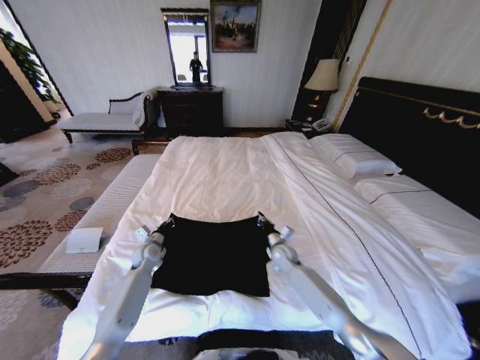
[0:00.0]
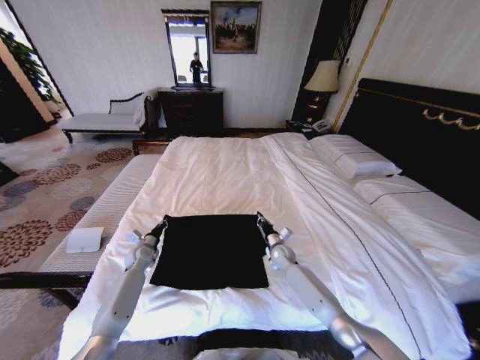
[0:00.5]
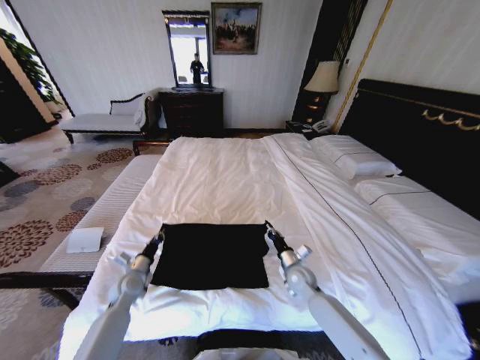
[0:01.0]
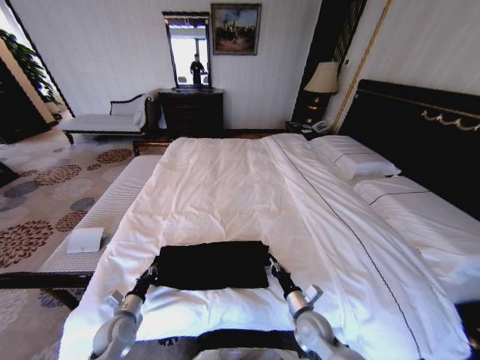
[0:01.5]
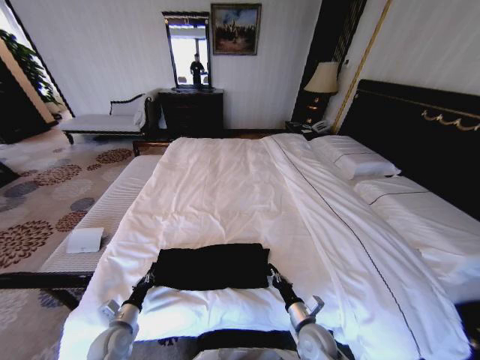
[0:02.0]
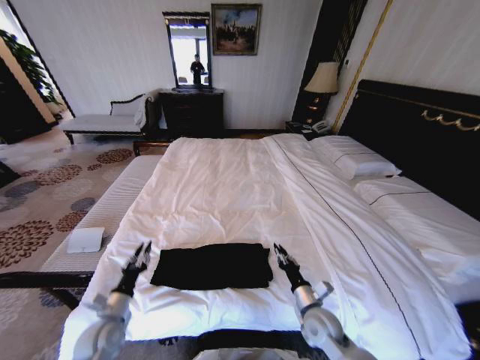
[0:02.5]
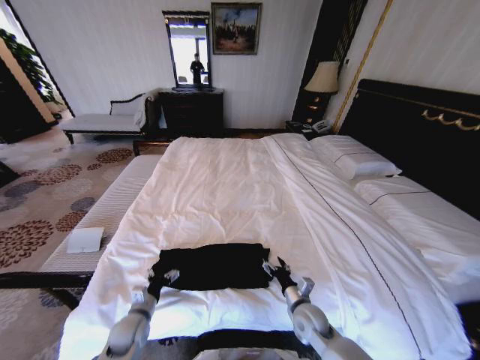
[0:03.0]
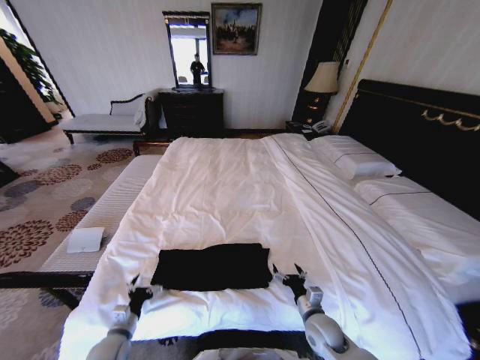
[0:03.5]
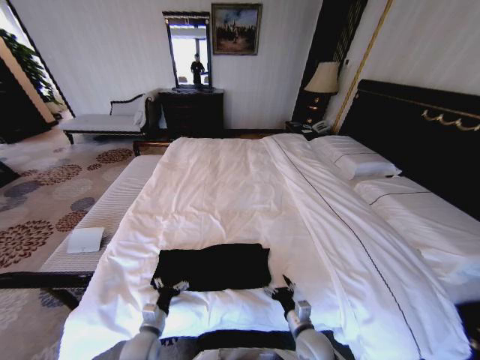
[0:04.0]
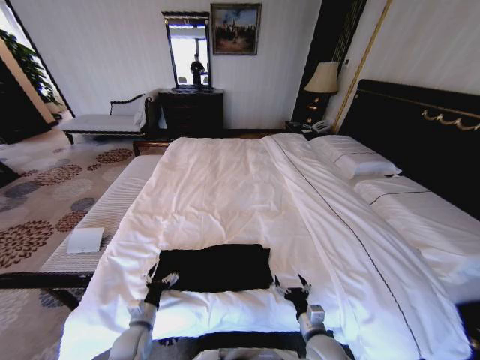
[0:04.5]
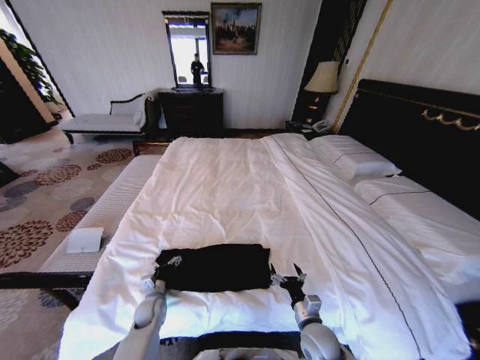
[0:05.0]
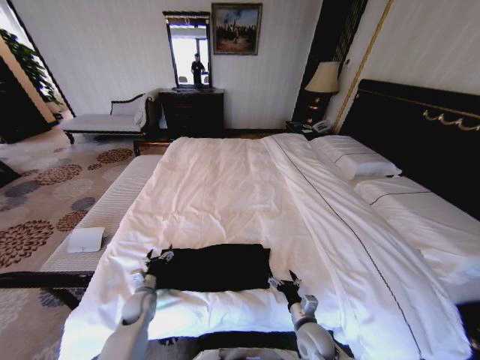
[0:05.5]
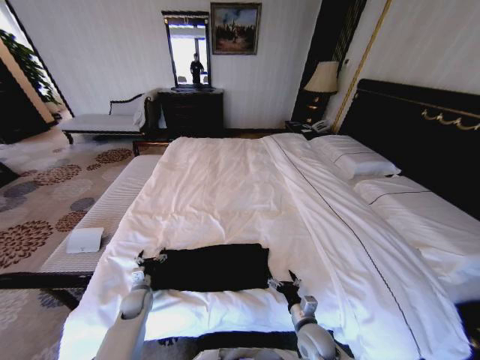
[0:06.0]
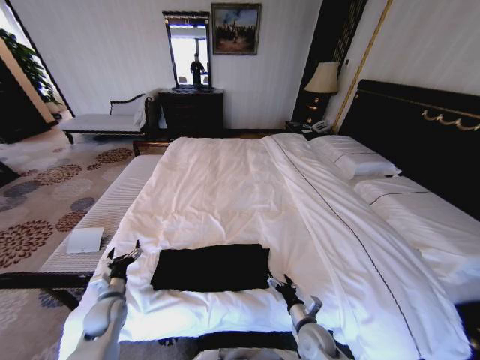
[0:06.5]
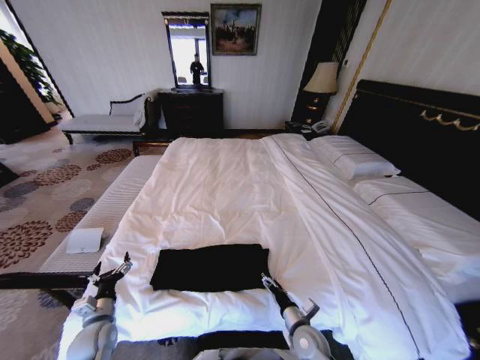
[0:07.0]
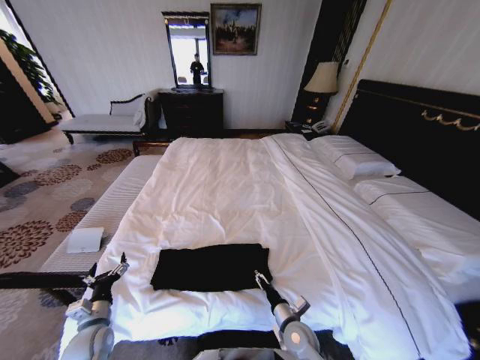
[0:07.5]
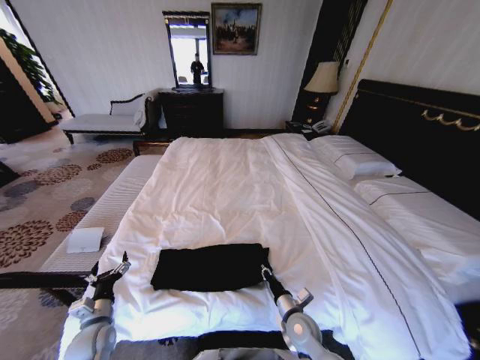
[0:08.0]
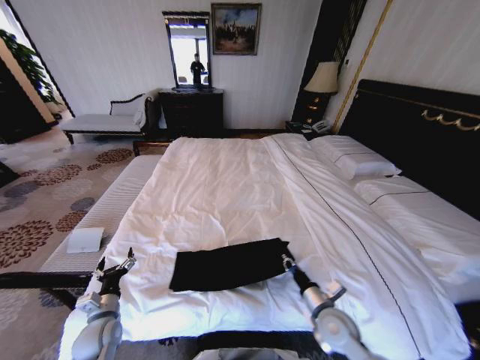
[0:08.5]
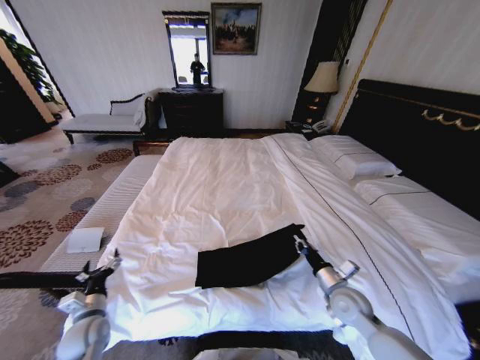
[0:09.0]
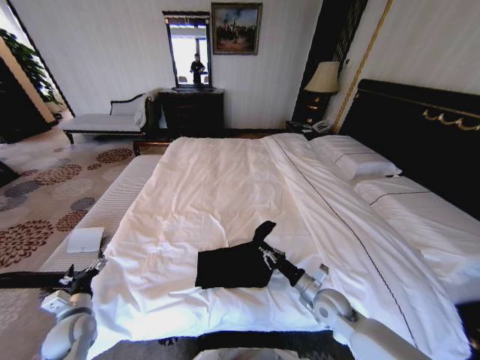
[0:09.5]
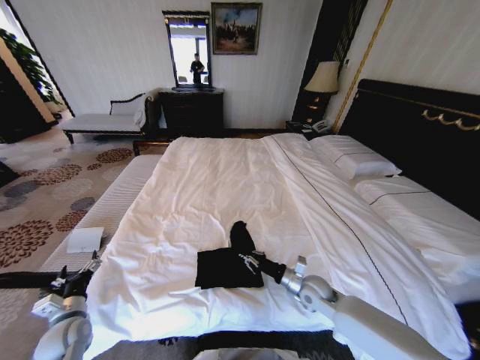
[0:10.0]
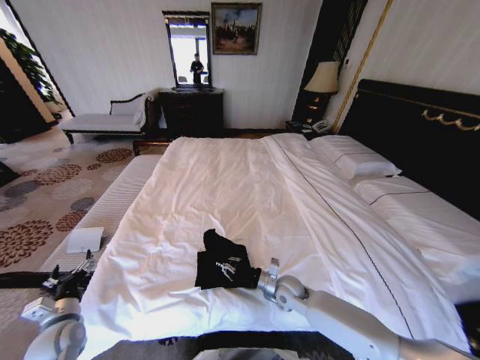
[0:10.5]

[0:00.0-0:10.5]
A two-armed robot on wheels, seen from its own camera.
Task of the whole recording: Fold the clothes on the bed.
0:00.0 to 0:02.0: The two grippers go approximately 25 cm backward.
0:02.0 to 0:04.0: The left gripper travels to the right by about 10 cm, moves roughly 10 cm upward and comes back, and opens its fingers, while the right gripper opens up.
0:04.0 to 0:06.5: The left gripper travels to the left, forward and upward by about 15 cm.
0:06.5 to 0:08.5: The left gripper heads backward, covering about 5 cm. Meanwhile the right gripper is displaced upward by approximately 10 cm, and closes.
0:08.5 to 0:10.5: The left gripper heads to the left, covering some 10 cm. Meanwhile the right gripper is displaced forward and to the left by approximately 15 cm.

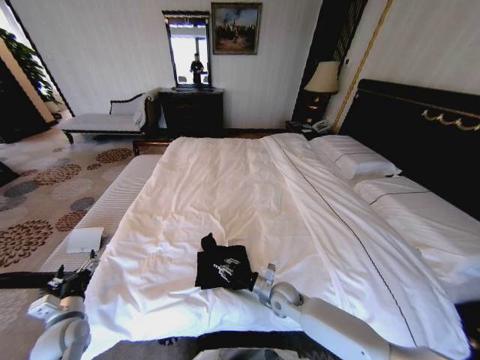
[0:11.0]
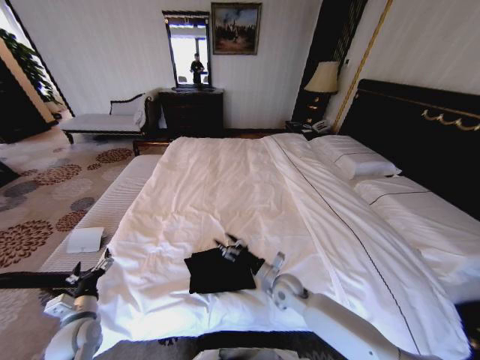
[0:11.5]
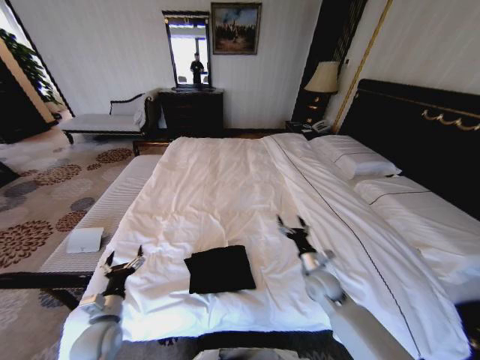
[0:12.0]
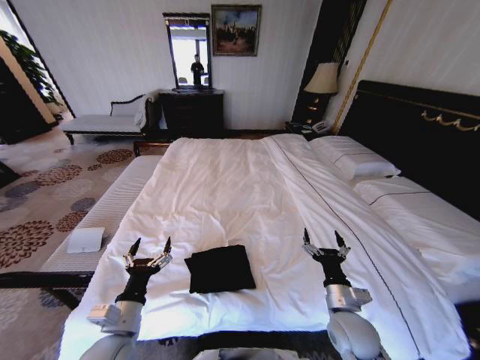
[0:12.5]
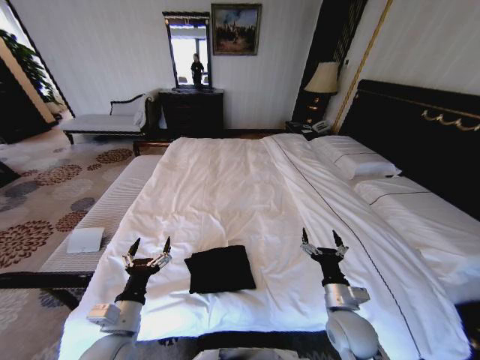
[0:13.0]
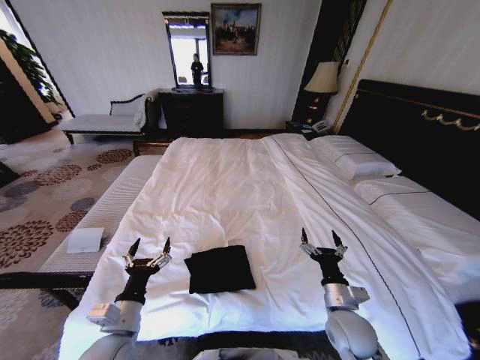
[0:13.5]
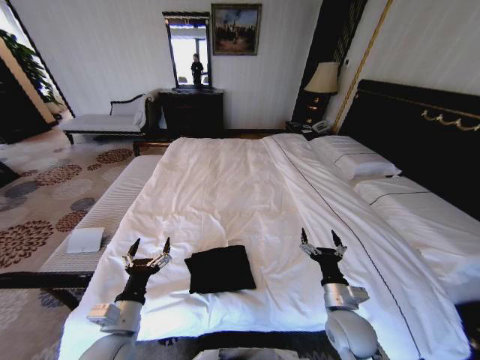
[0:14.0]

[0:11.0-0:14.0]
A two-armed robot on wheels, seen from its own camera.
Task of the whole recording: Fold the clothes on the bed.
0:11.0 to 0:12.5: The right gripper heads to the right, backward and upward, covering roughly 20 cm, and opens. Meanwhile the left gripper heads to the right and upward, covering some 20 cm.
0:12.5 to 0:14.0: Neither gripper changes place.
